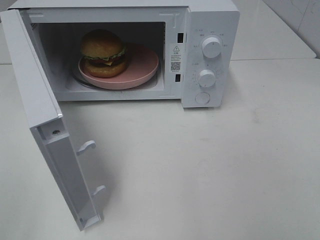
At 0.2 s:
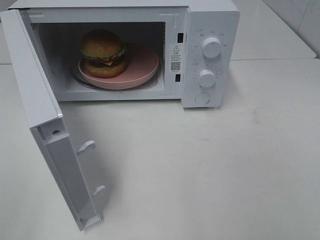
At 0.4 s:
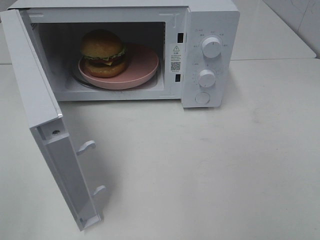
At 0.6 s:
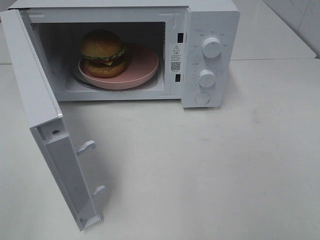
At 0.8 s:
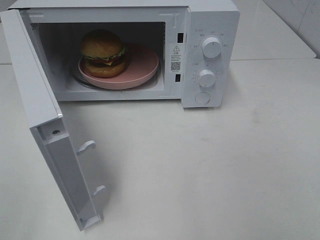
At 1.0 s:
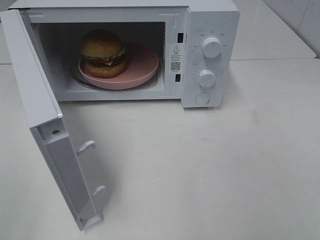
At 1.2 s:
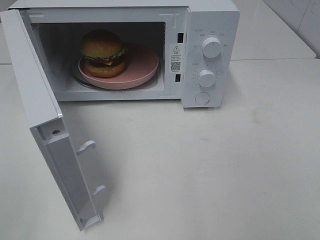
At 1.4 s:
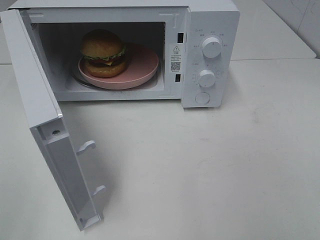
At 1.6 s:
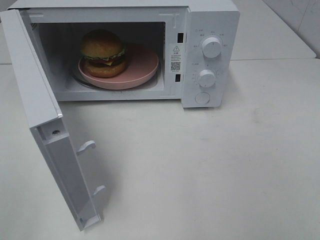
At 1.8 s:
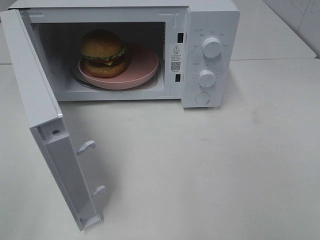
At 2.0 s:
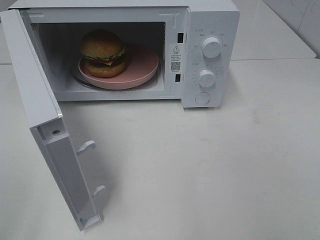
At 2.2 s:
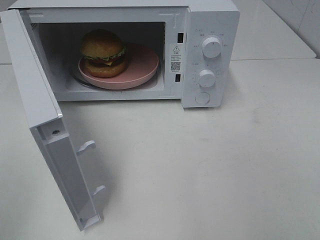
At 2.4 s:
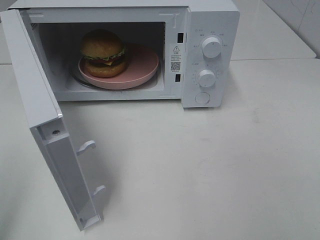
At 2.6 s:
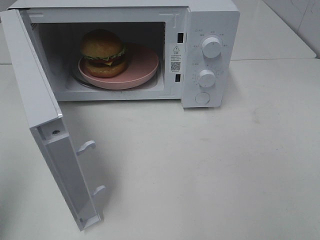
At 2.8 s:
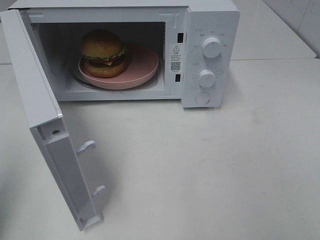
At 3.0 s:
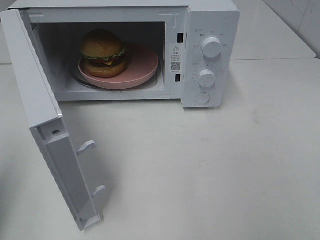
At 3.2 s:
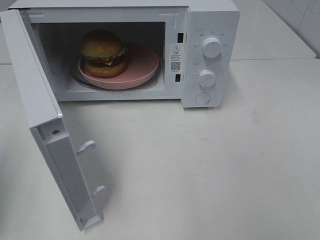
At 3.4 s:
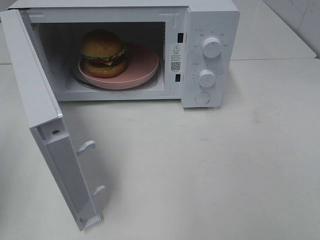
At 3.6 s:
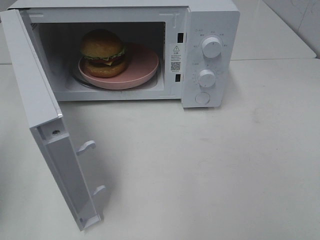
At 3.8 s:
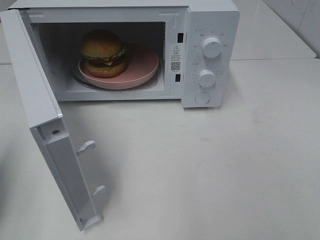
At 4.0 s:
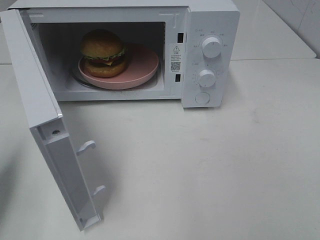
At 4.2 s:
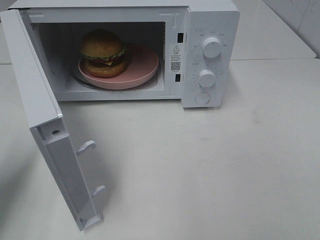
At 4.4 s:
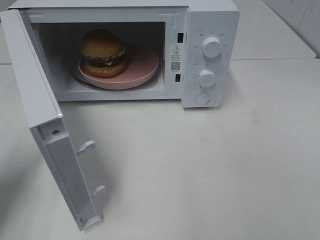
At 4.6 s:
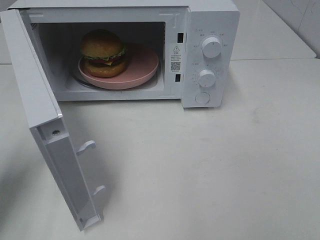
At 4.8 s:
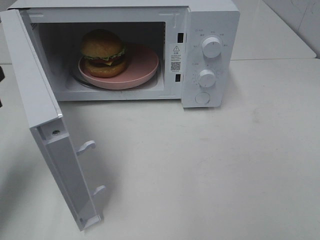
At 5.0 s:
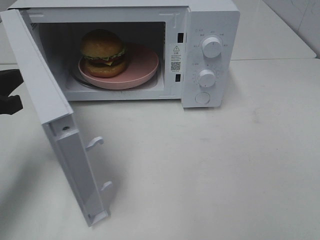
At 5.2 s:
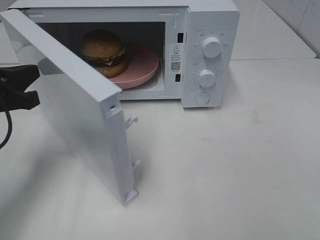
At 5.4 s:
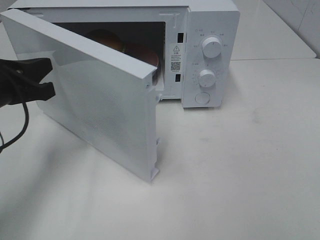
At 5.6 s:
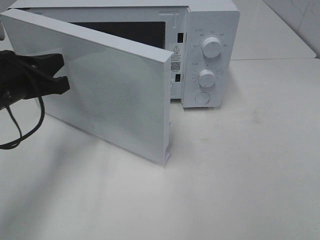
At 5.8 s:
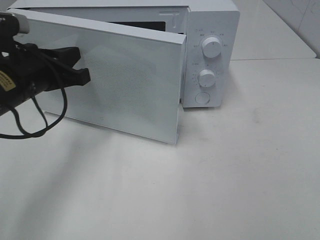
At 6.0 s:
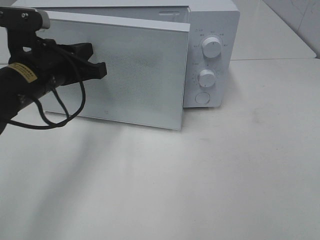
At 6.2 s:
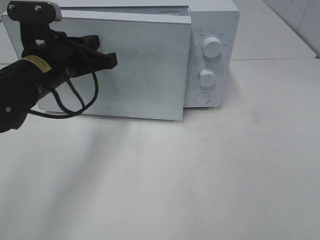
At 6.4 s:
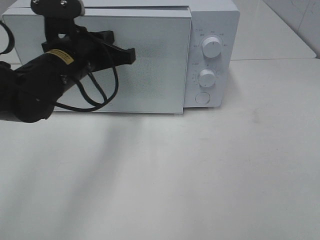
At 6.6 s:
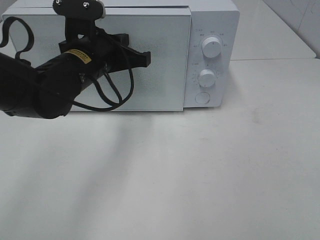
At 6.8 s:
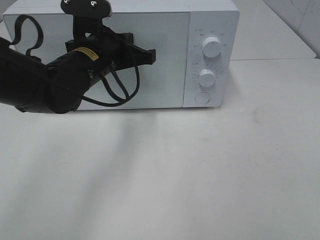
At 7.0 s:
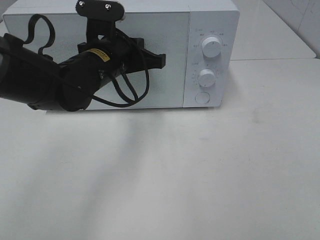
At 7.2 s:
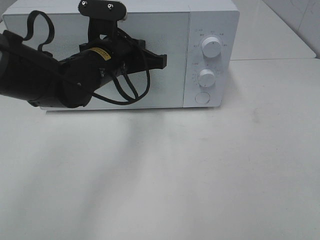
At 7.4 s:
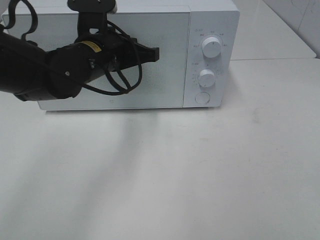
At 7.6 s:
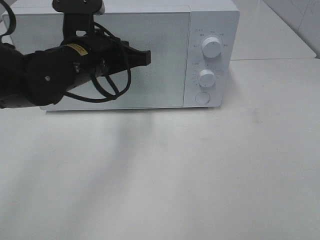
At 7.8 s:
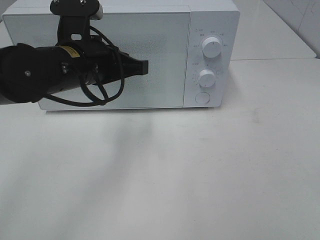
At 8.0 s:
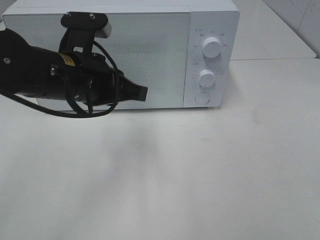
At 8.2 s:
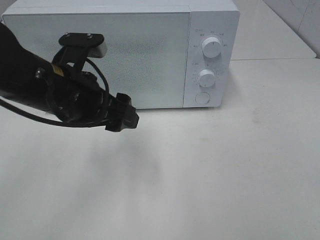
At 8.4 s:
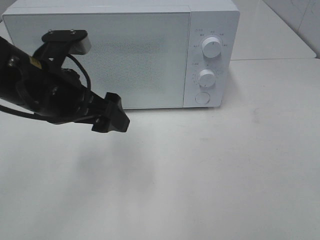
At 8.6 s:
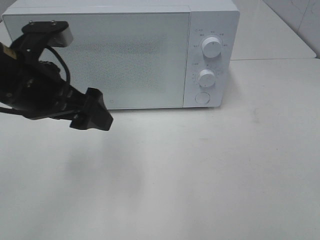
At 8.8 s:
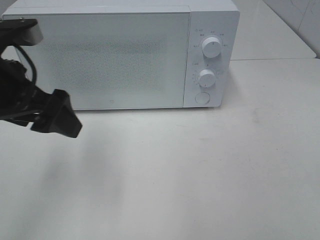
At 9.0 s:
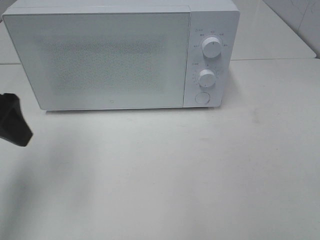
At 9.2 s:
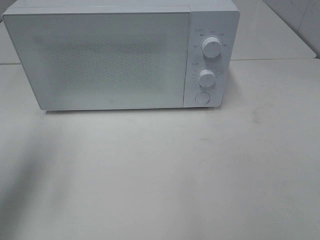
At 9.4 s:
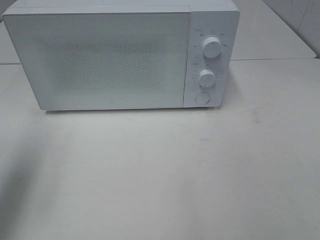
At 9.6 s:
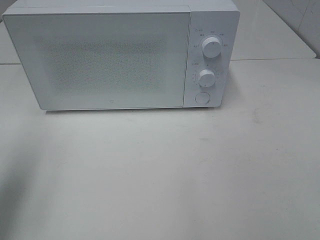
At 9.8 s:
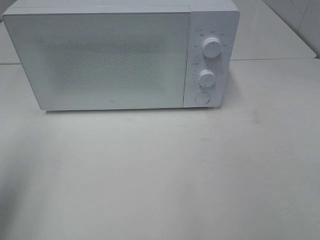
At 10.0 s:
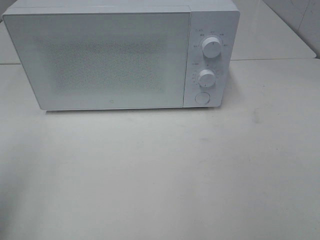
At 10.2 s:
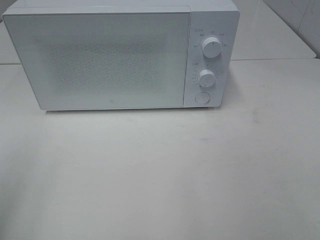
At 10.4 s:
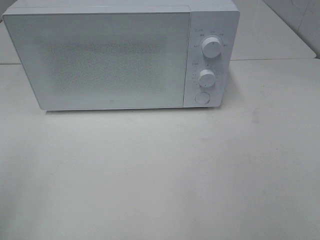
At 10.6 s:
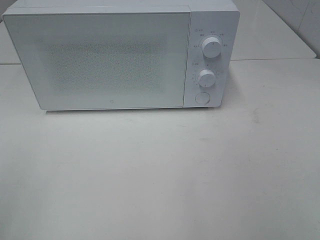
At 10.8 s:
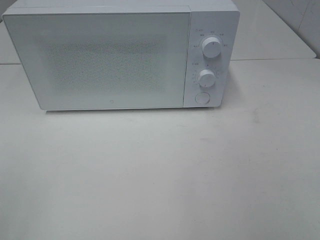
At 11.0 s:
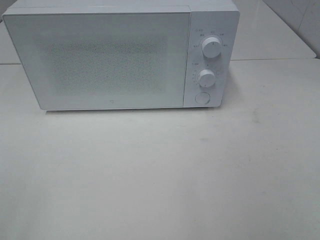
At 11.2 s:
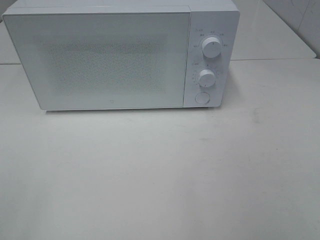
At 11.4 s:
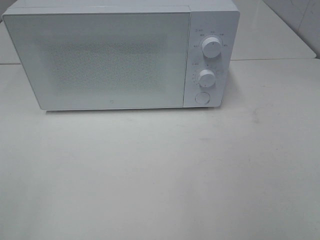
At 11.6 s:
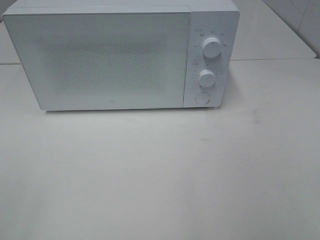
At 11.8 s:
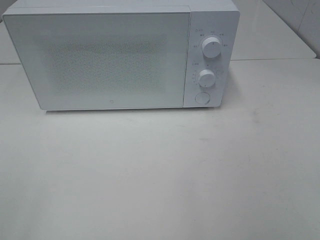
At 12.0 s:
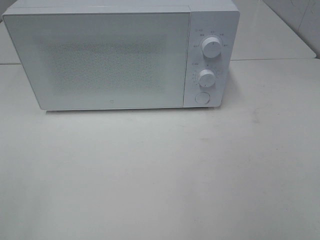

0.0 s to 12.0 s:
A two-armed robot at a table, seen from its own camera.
Task of the whole recording: Heat the burger.
Step, 0.0 to 8.0 s: Left hand: close the microwave door.
0.0 to 1.6 s: Neither gripper changes place.
1.6 to 3.0 s: The left gripper travels forward by about 10 cm, and closes.
3.0 to 4.4 s: The left gripper shifts roughly 10 cm forward and downward.
4.4 to 6.0 s: The left gripper is displaced to the right and forward by roughly 15 cm.
6.0 to 7.6 s: The left gripper is displaced to the right by some 5 cm.
7.6 to 9.0 s: The left gripper is displaced to the left and backward by about 15 cm, and opens.
9.0 to 10.4 s: The left gripper shifts approximately 20 cm backward and to the left.

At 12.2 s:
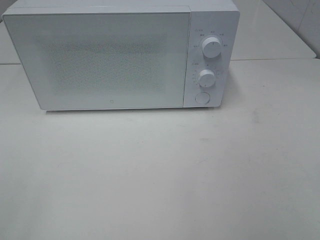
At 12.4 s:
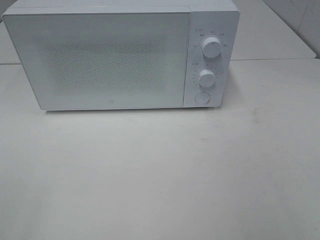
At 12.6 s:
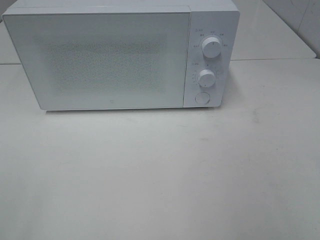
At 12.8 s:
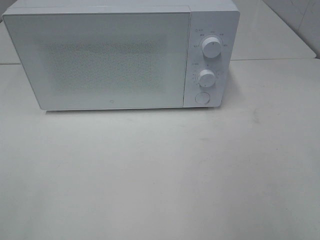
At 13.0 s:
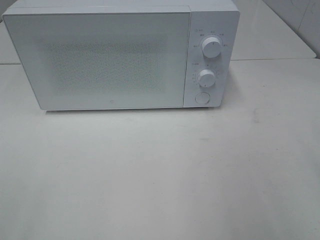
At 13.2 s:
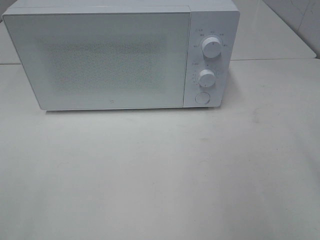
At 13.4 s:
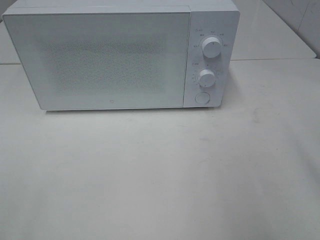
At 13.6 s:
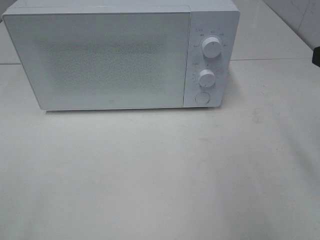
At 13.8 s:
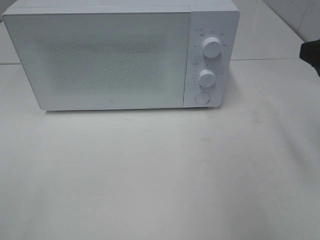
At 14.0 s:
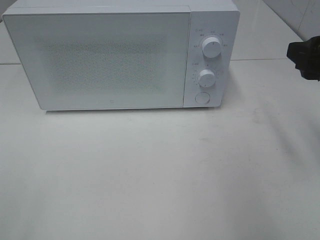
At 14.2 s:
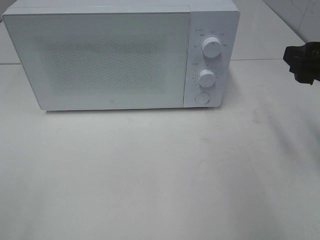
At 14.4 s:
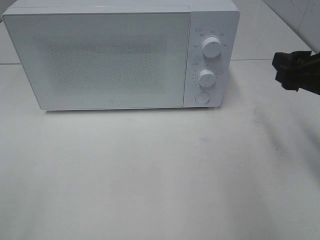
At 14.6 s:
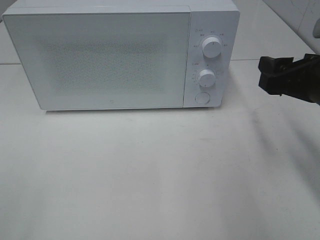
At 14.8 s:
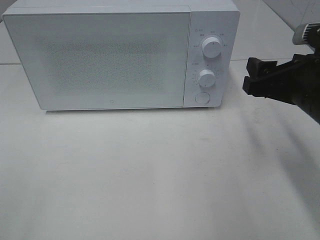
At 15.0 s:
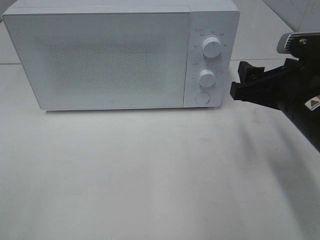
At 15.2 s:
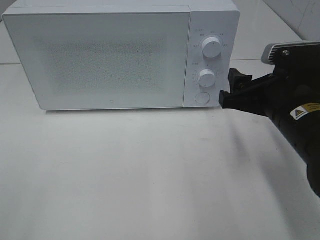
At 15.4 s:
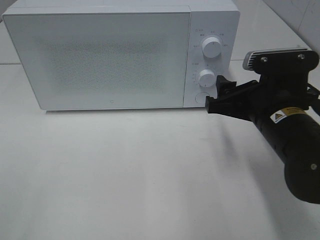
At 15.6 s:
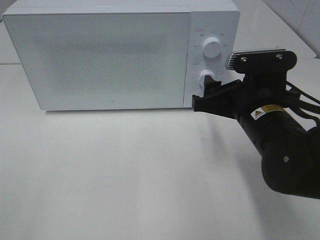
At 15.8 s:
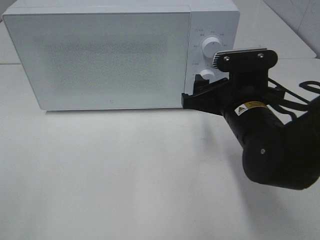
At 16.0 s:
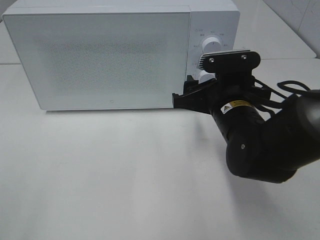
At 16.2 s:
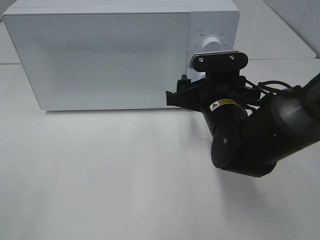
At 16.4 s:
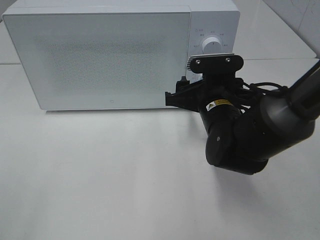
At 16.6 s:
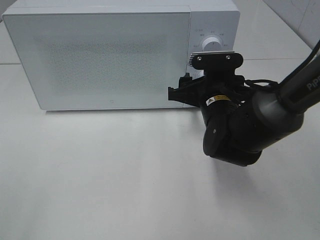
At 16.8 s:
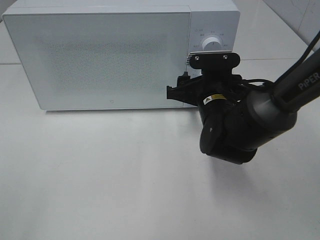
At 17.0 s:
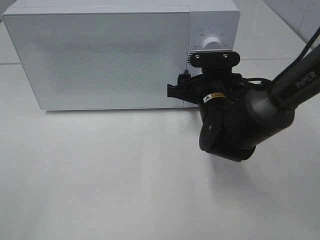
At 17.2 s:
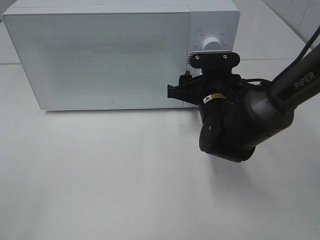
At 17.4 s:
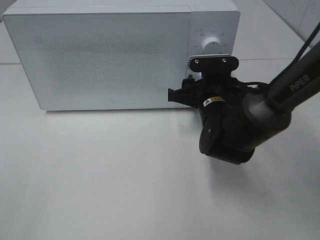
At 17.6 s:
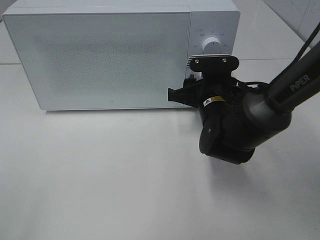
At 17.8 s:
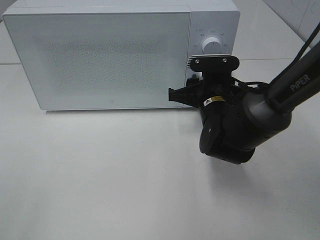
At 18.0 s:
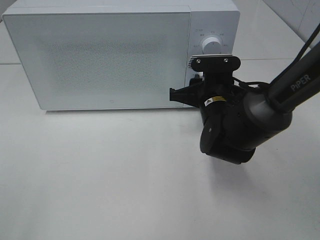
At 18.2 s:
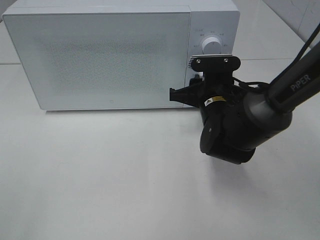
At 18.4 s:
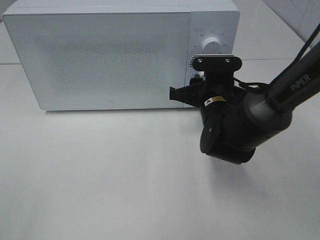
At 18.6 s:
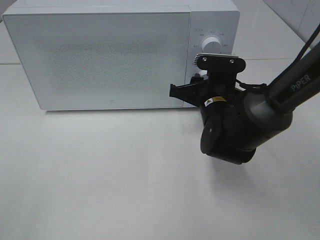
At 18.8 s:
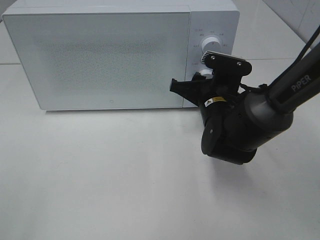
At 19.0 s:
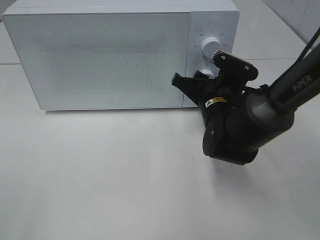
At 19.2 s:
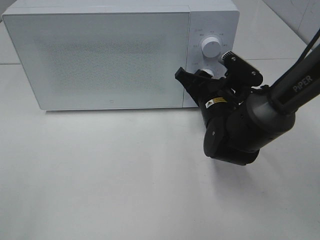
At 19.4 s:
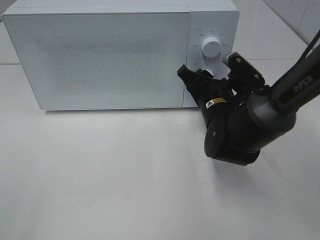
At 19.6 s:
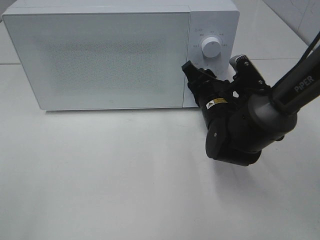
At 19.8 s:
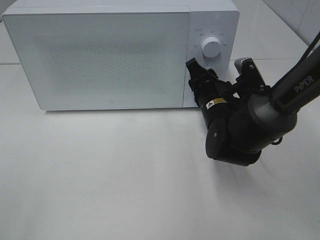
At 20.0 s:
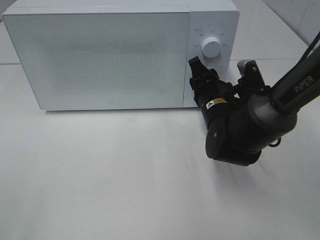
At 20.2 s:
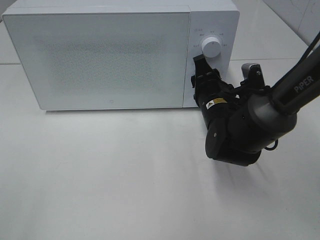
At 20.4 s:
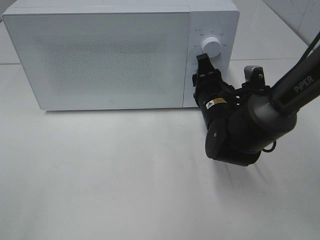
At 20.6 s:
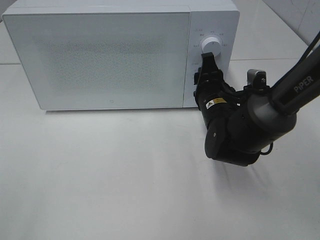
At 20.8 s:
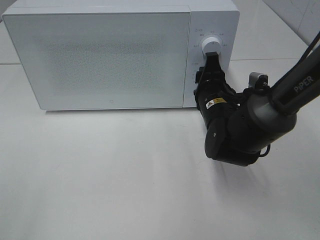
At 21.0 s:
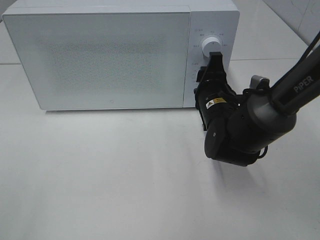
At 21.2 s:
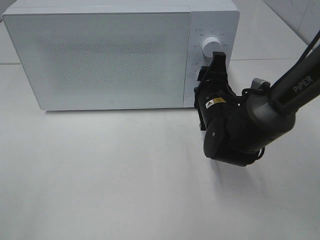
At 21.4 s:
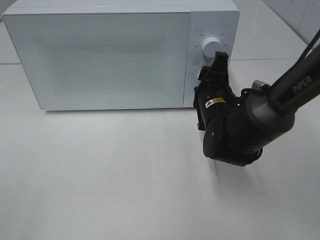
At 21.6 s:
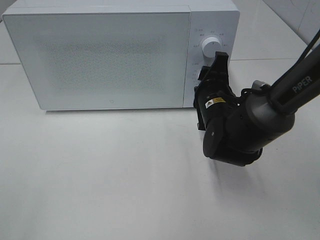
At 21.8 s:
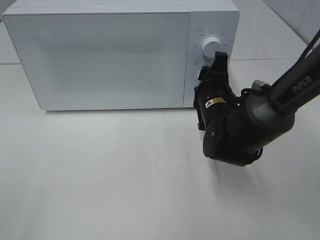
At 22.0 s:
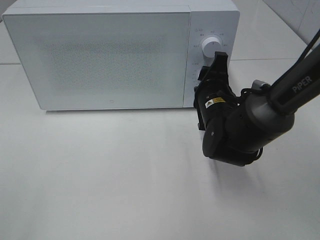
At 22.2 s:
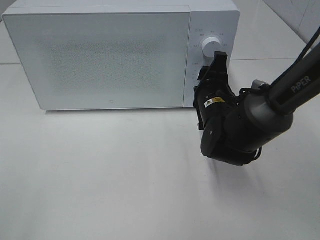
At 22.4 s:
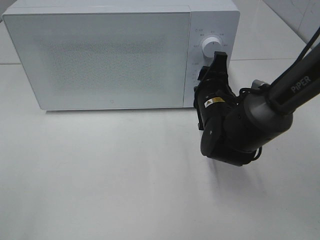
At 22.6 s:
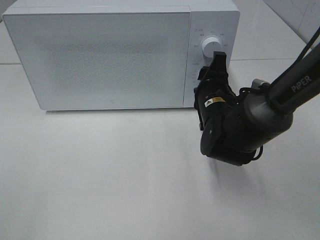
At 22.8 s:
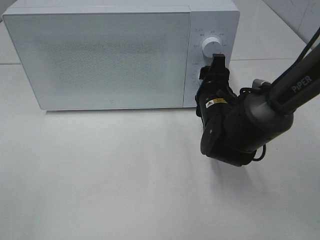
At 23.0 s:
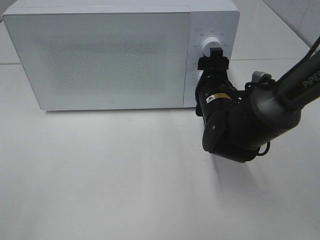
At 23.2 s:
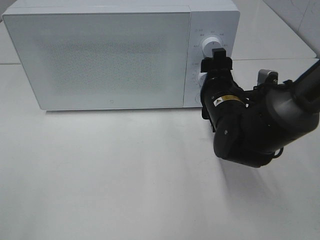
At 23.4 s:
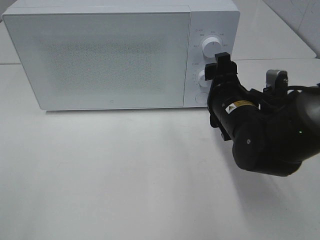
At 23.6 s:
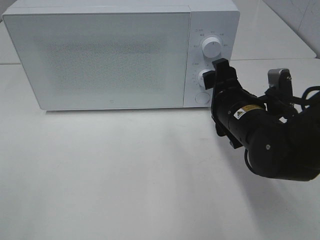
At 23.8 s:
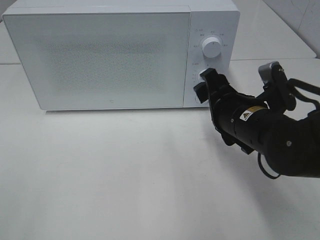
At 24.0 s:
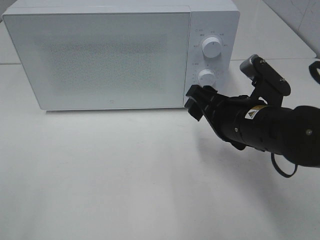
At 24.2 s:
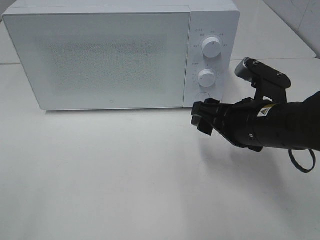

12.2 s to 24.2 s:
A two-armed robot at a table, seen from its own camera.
Task of the whole recording: Heat the burger.
Step, 12.2 to 23.0 s: Right hand: twist timer button.
12.2 to 13.8 s: The right gripper heads forward, covering about 20 cm.
13.8 to 15.2 s: The right gripper is displaced downward and to the left by about 15 cm.
15.2 to 16.6 s: The right gripper goes about 15 cm forward, to the left and downward.
16.6 to 18.2 s: The grippers stay close to where they were, moving slightly.
21.2 to 22.6 s: The two grippers keep their place.
22.6 to 24.2 s: The right gripper goes approximately 10 cm backward.
